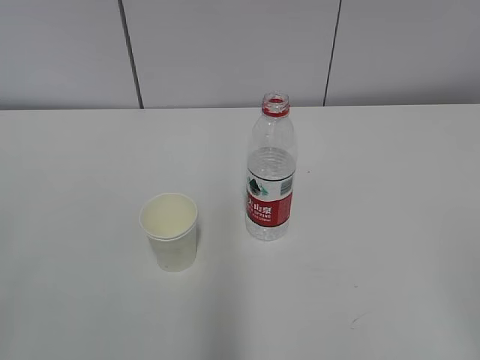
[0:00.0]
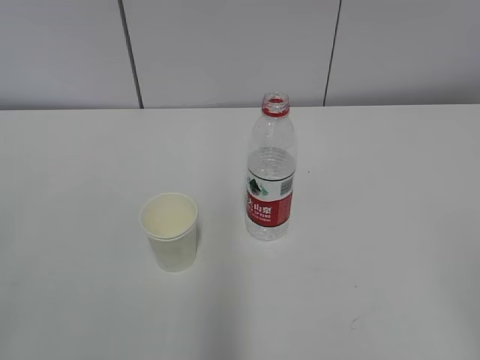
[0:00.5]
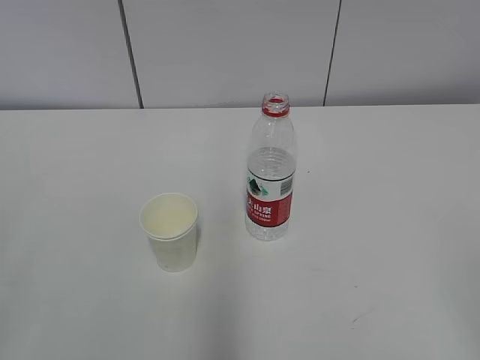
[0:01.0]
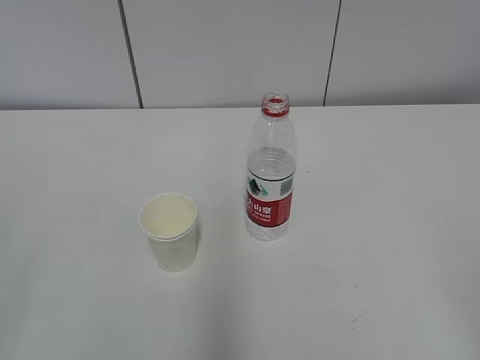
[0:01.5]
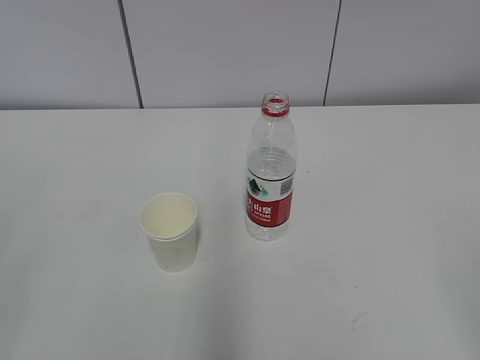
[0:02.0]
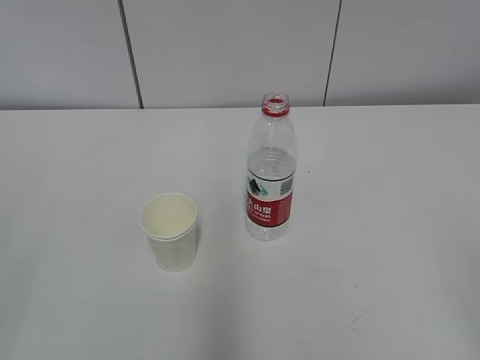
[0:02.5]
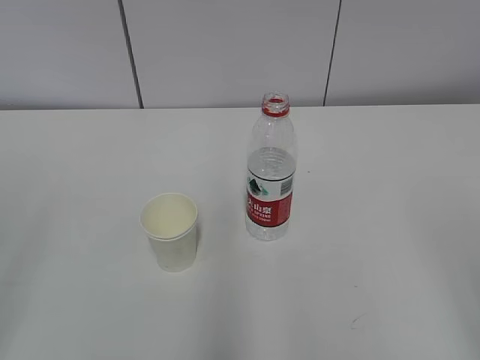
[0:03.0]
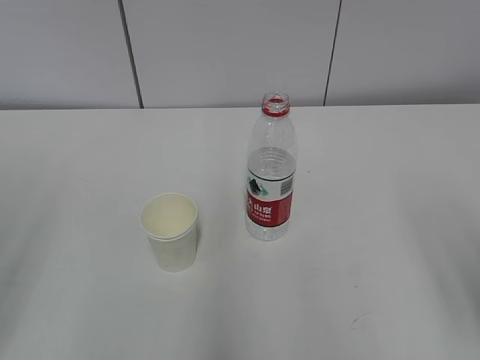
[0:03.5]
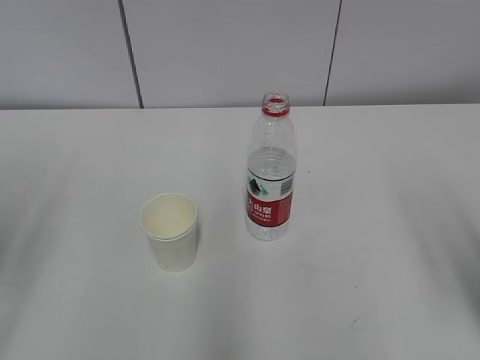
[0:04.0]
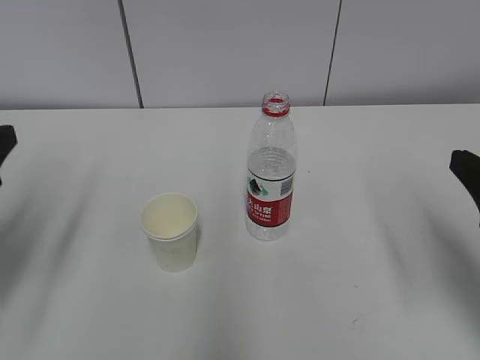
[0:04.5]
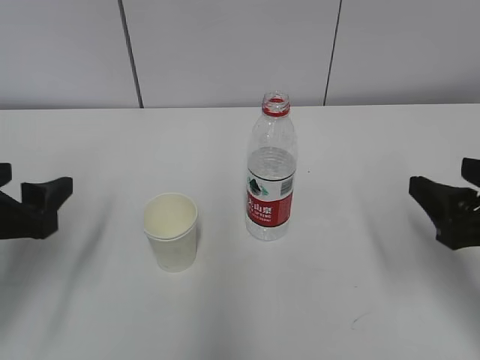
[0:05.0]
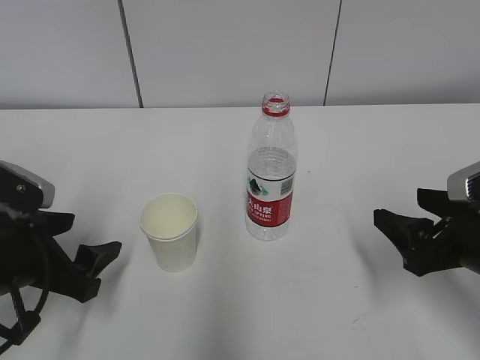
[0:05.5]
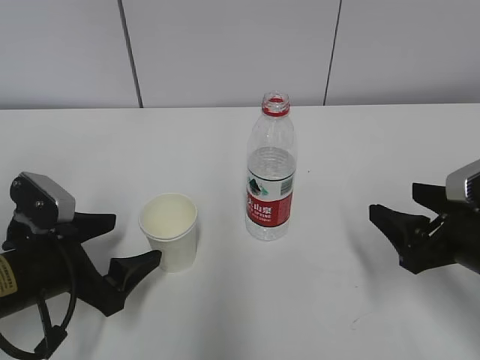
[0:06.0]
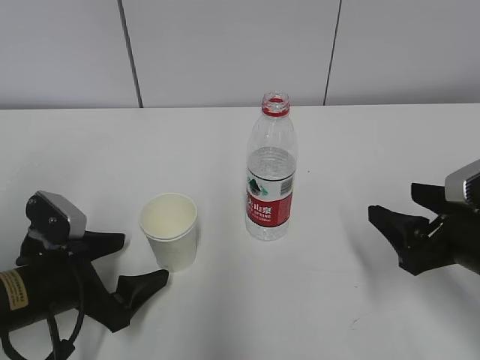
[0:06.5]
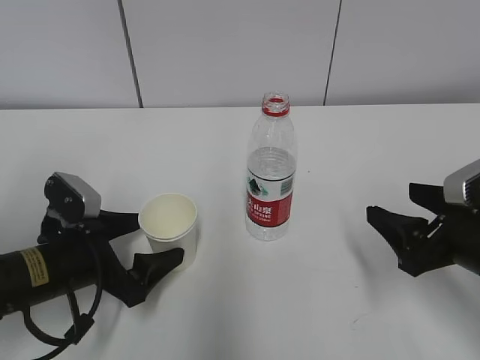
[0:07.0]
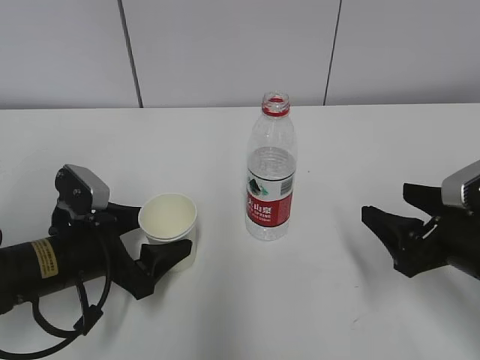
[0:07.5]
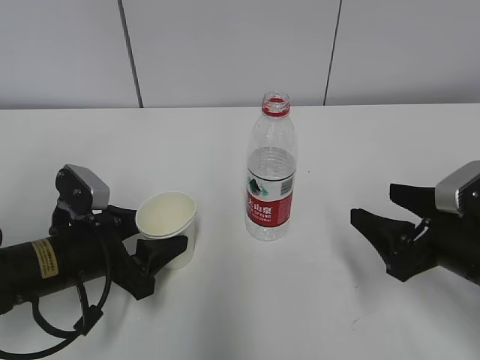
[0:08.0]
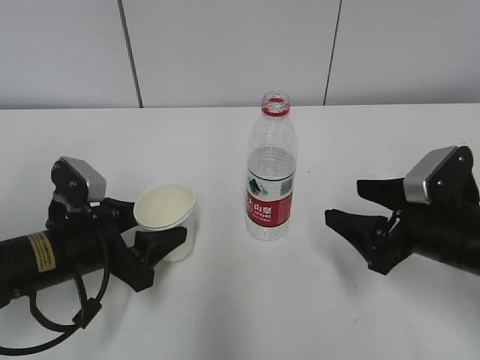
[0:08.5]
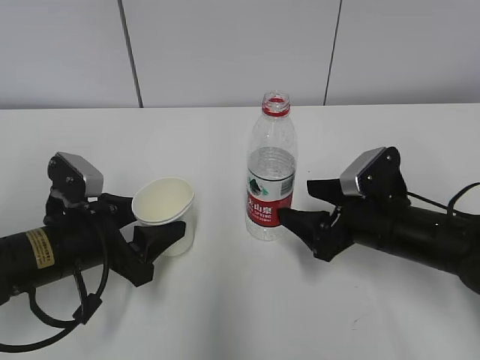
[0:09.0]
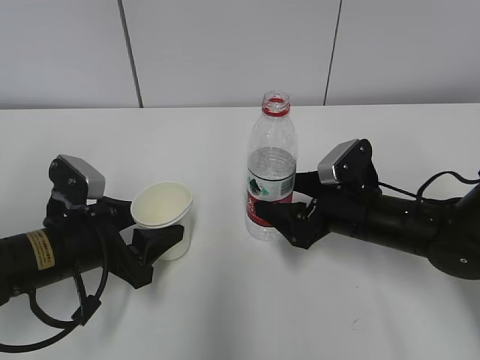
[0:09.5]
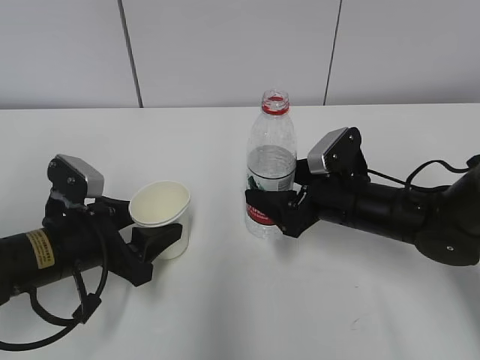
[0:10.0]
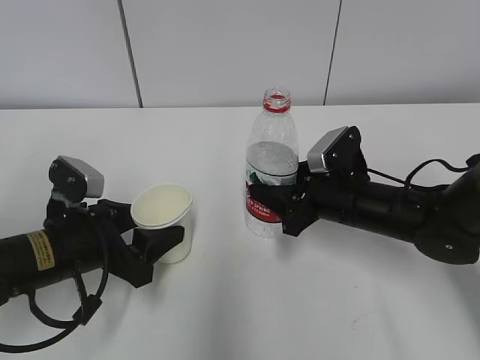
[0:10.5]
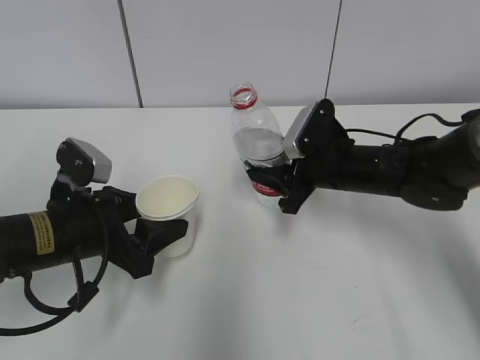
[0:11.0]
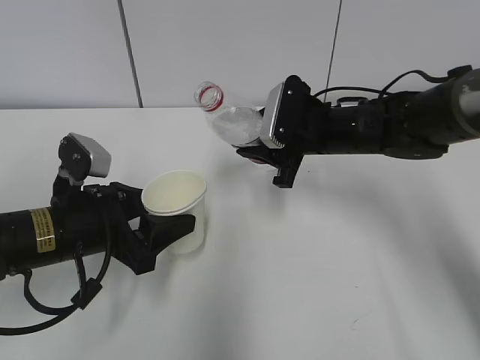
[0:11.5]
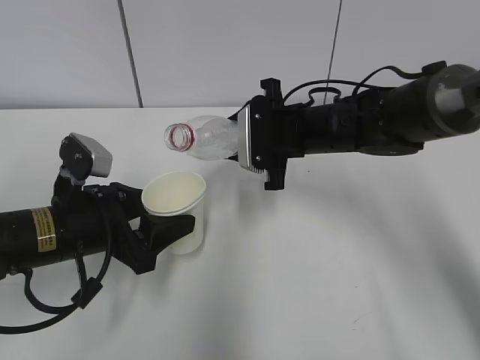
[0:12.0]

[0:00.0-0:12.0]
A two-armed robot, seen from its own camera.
Step, 0:00.0 to 0:06.5: Grab the paper cup with the left hand.
Step, 0:07.0 to 0:08.5: Grab the water bottle with the right hand.
Step, 0:09.0 to 0:11.0: Lift the paper cup with the left hand.
0:02.0 to 0:04.0: The right gripper travels forward by roughly 15 cm.
0:04.0 to 0:06.0: The left gripper travels downward, to the right and forward by approximately 20 cm. Meanwhile the right gripper goes roughly 15 cm downward and forward.
0:06.0 to 0:08.0: The left gripper closes up.
0:08.0 to 0:10.0: The right gripper heads forward and to the left, covering some 15 cm.
0:10.0 to 0:12.0: The right gripper goes approximately 10 cm forward, upward and to the left, and closes its fingers.

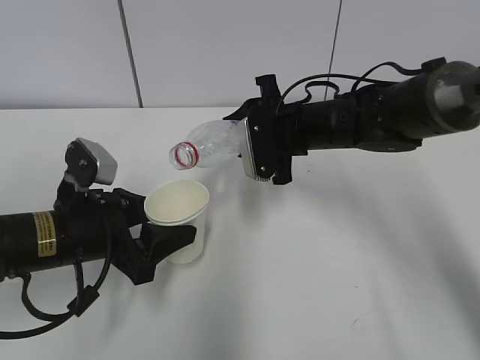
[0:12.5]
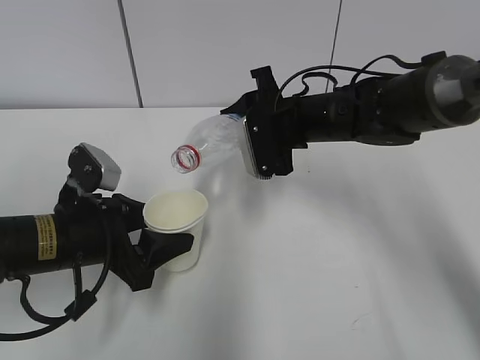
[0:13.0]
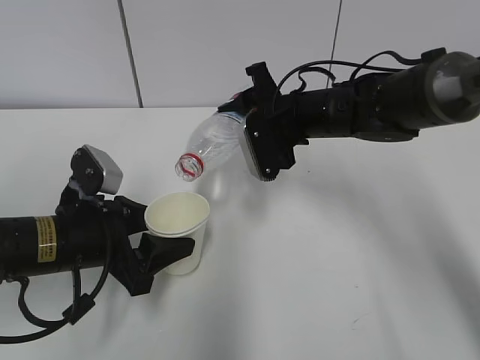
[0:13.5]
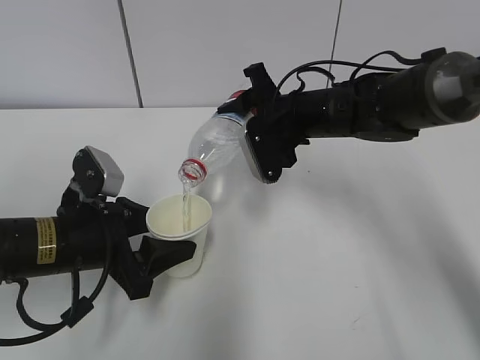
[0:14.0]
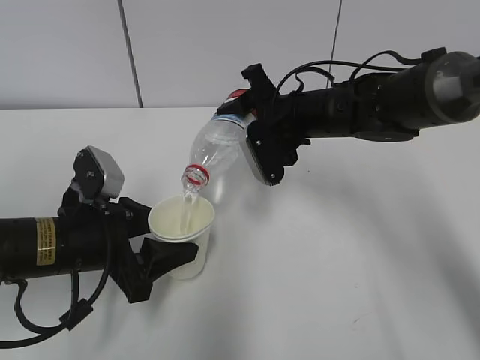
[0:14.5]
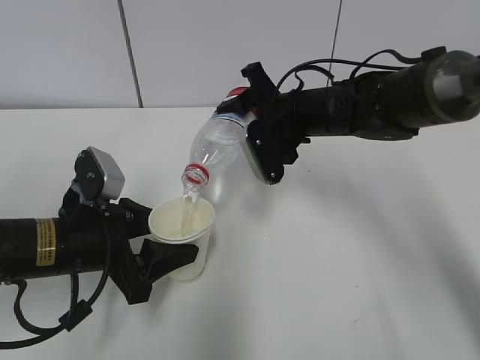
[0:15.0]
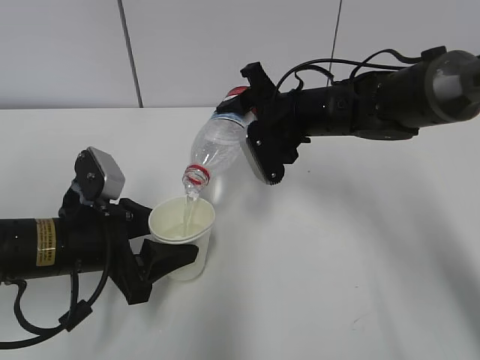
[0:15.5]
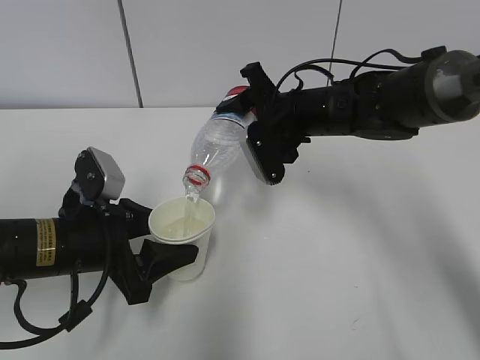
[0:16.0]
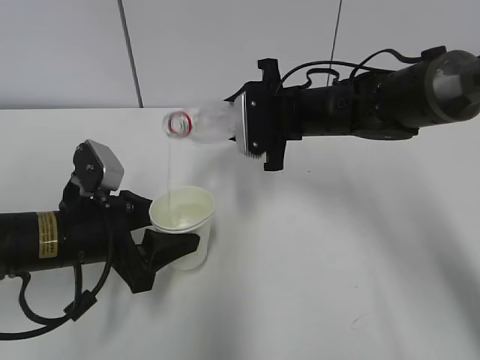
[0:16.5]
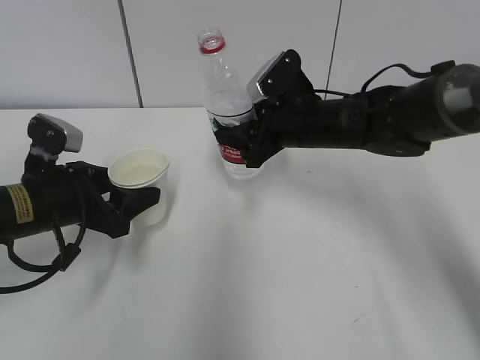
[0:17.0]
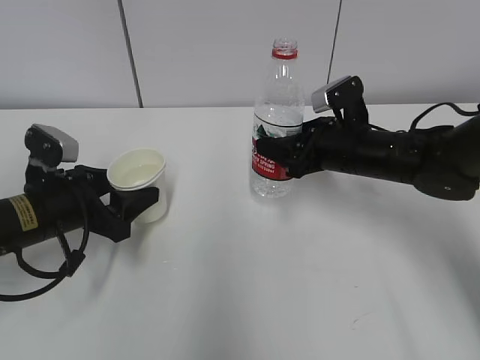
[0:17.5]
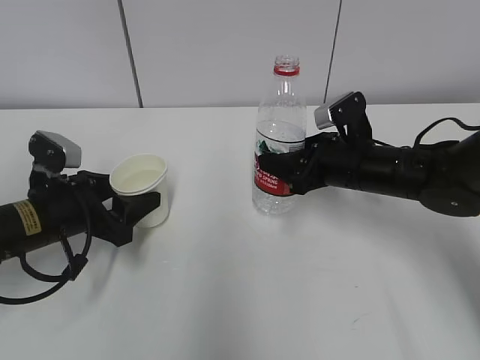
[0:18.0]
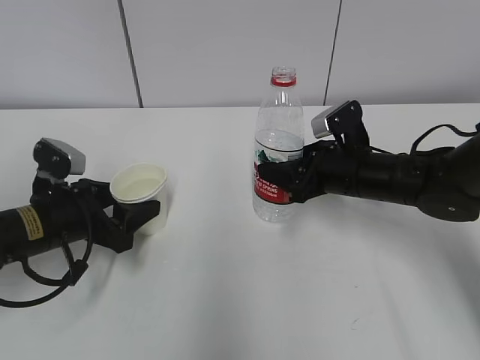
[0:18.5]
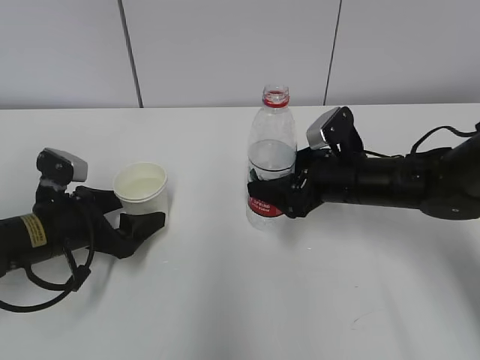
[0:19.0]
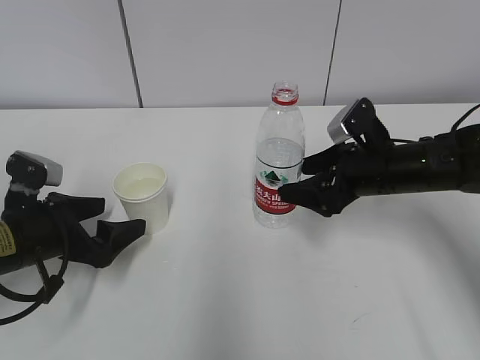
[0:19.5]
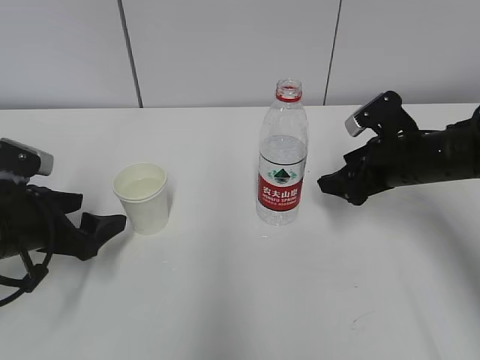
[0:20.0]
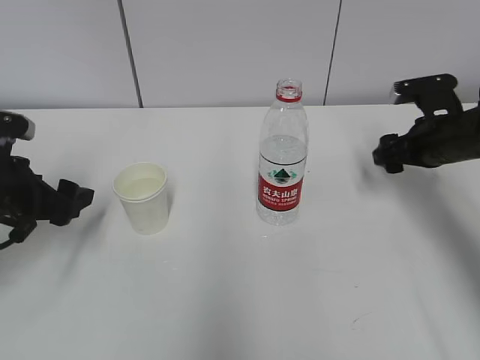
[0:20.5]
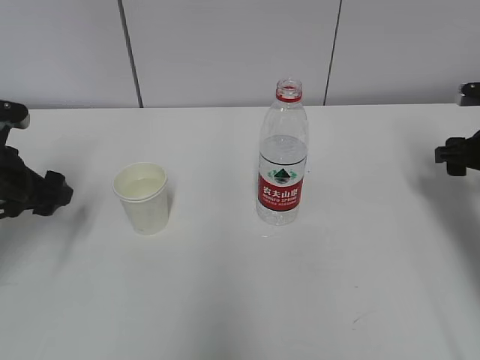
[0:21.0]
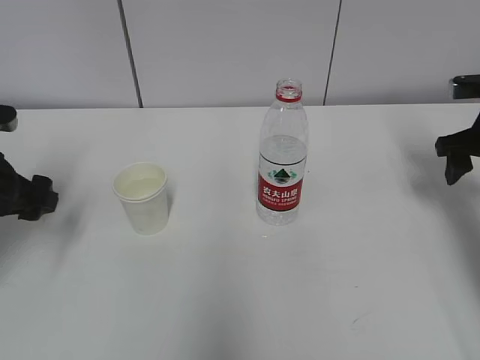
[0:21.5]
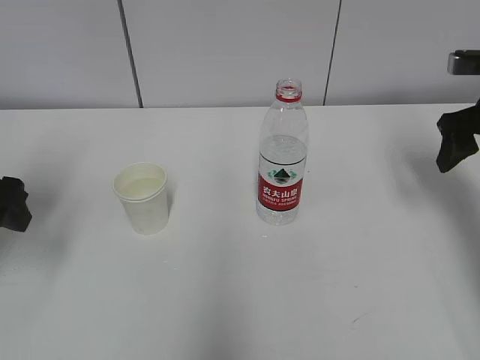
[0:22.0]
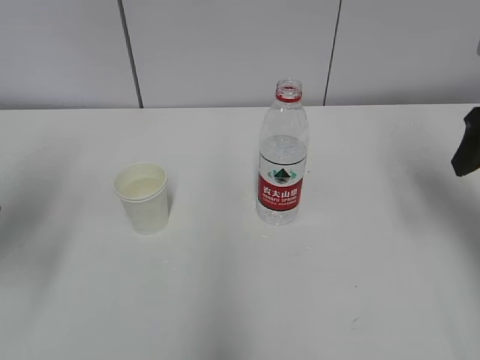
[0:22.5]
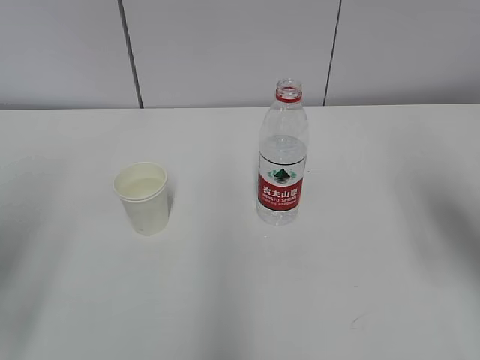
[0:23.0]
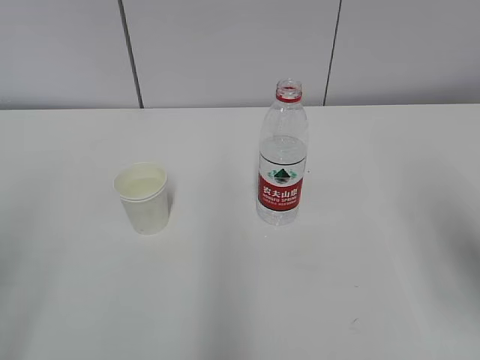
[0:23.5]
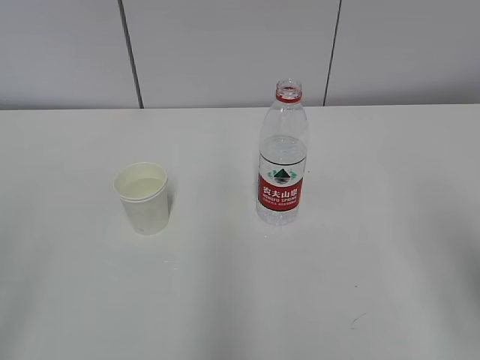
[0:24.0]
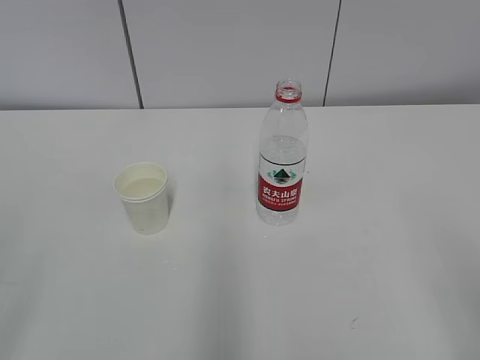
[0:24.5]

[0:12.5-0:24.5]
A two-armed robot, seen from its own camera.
Step, 0:14.5 to 0:15.5: Place the paper cup with the left hand.
0:16.5 to 0:18.5: The left gripper changes place by some 5 cm, while the right gripper is displaced to the right and downward by about 10 cm.
0:18.5 to 0:20.5: The left gripper travels upward and to the left by roughly 5 cm, and opens, while the right gripper travels to the right by some 10 cm, and opens up.
0:20.5 to 0:22.5: Both grippers travel together upward and backward, about 15 cm.
0:22.5 to 0:24.5: The two grippers go roughly 25 cm backward.

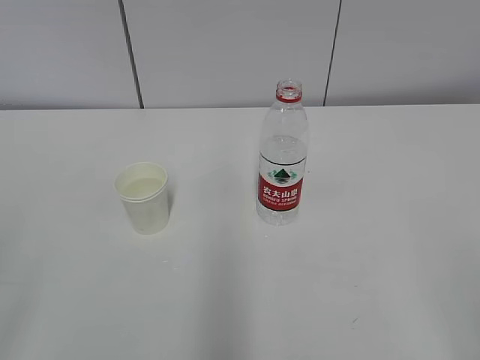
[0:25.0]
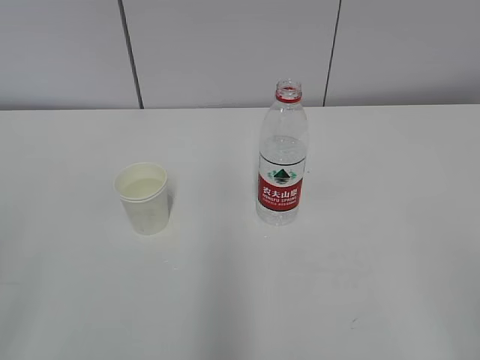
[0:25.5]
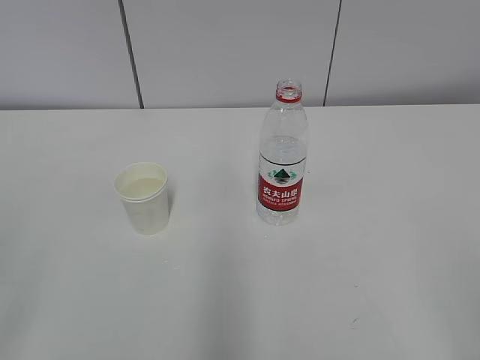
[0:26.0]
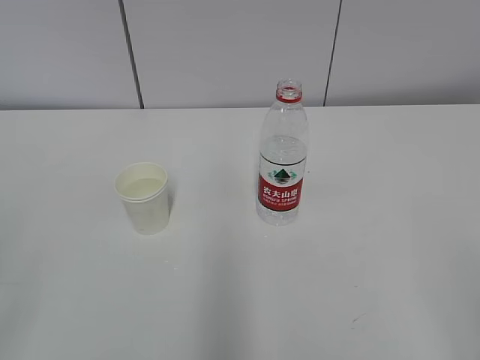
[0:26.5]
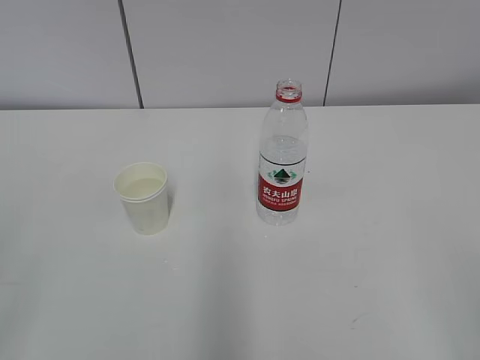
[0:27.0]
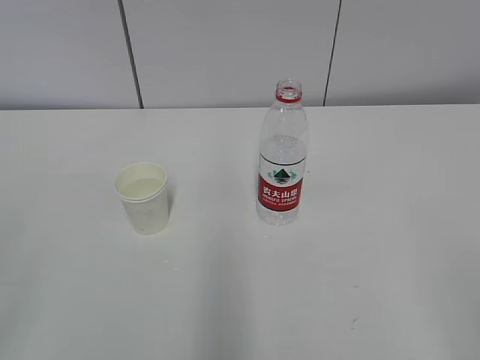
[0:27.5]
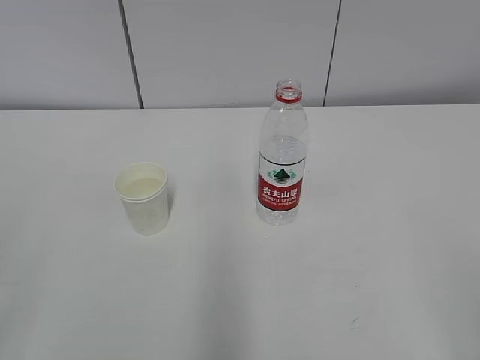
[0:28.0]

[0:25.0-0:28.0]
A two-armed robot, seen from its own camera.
0:25.0 to 0:28.0: Both grippers stay about where they are.
